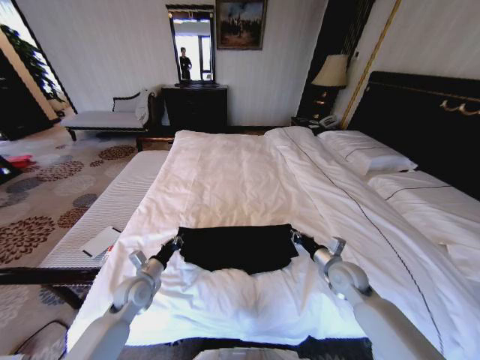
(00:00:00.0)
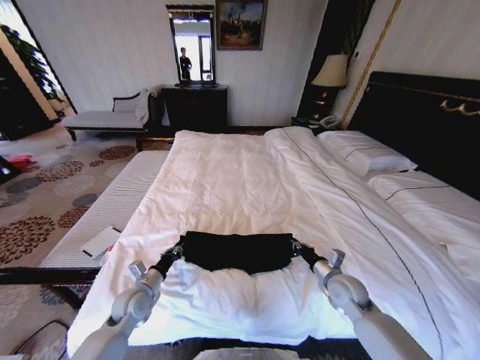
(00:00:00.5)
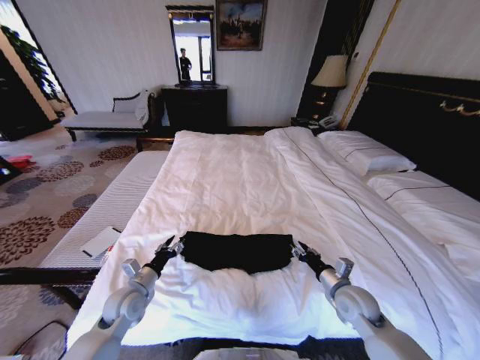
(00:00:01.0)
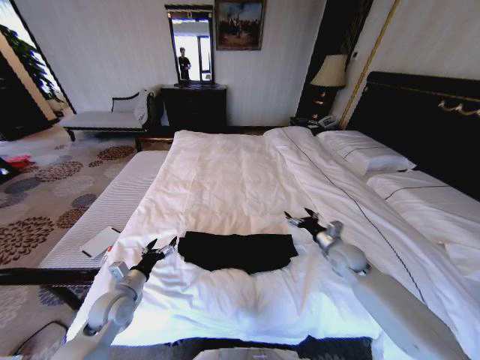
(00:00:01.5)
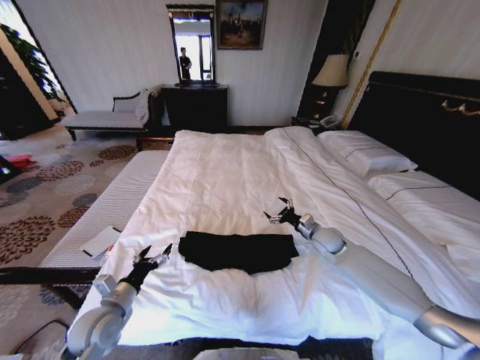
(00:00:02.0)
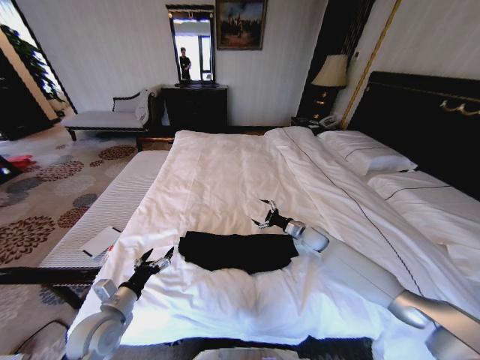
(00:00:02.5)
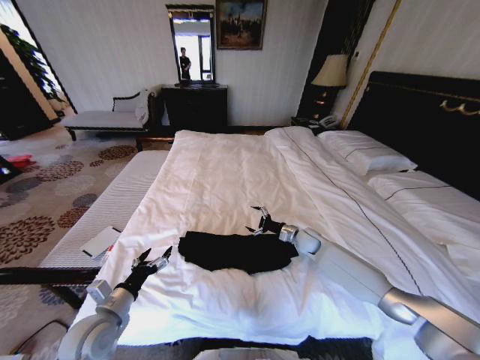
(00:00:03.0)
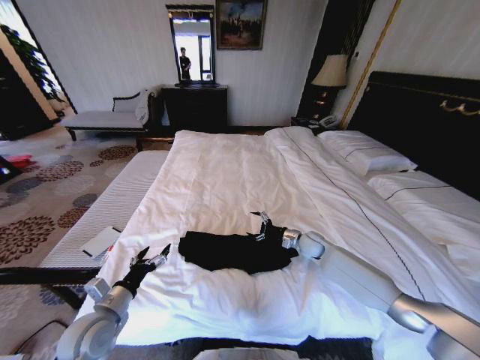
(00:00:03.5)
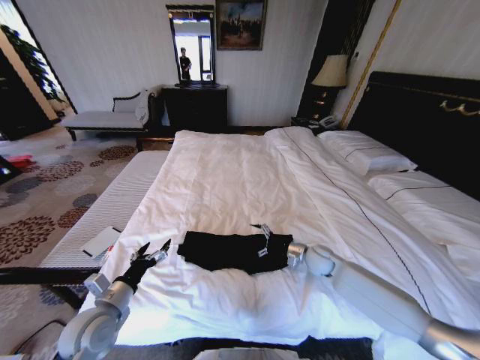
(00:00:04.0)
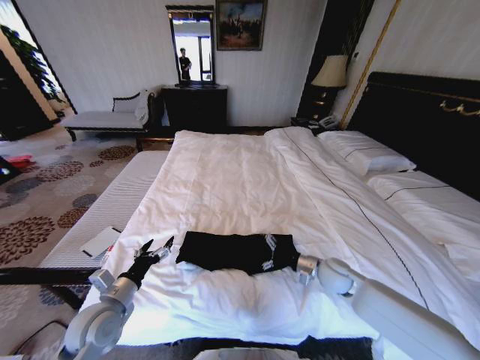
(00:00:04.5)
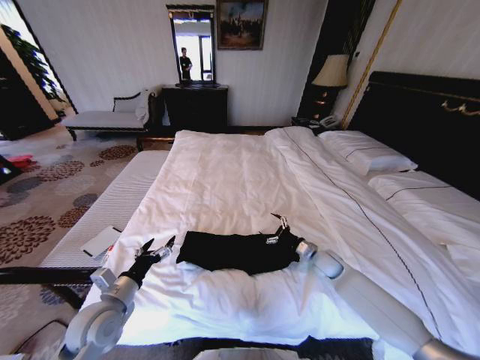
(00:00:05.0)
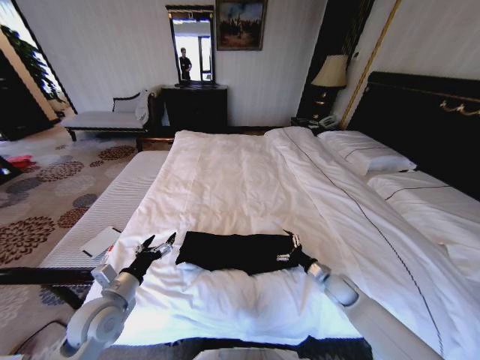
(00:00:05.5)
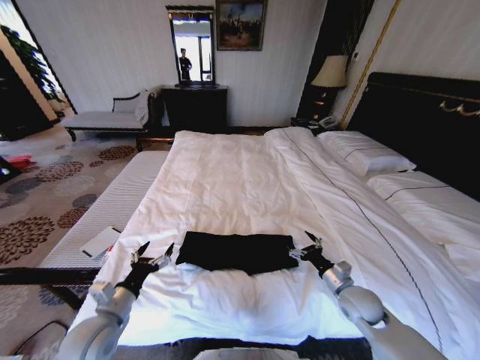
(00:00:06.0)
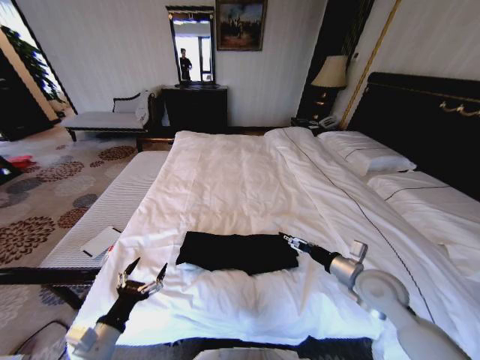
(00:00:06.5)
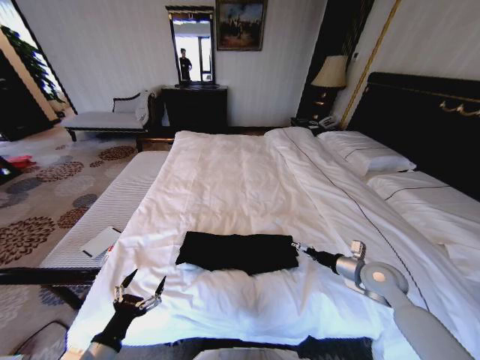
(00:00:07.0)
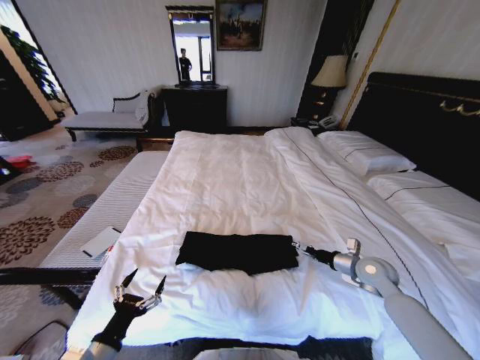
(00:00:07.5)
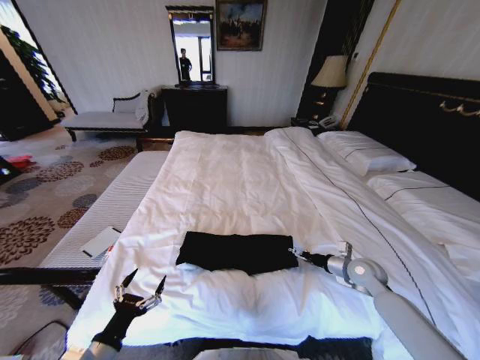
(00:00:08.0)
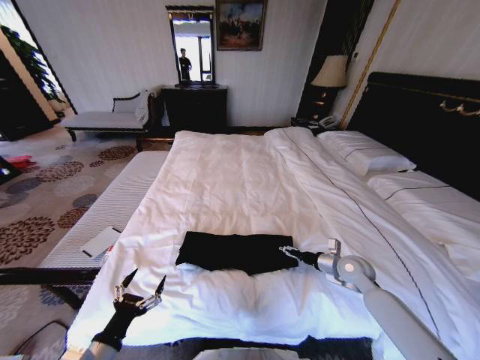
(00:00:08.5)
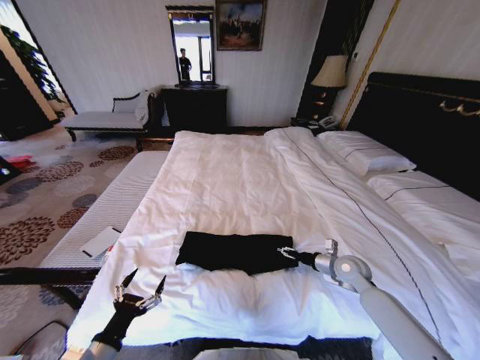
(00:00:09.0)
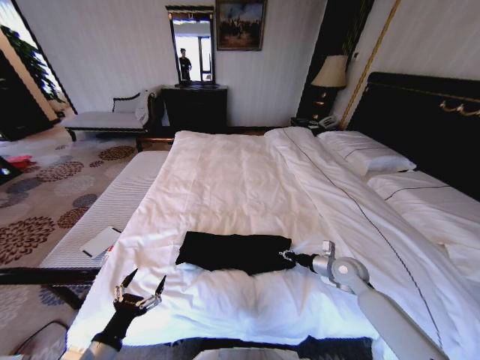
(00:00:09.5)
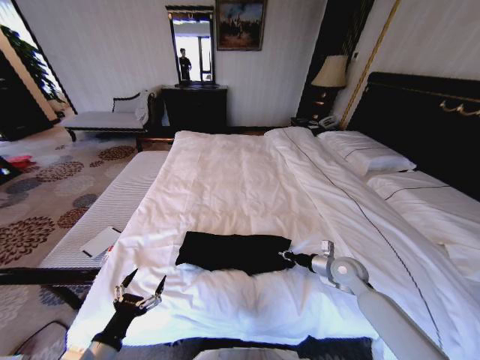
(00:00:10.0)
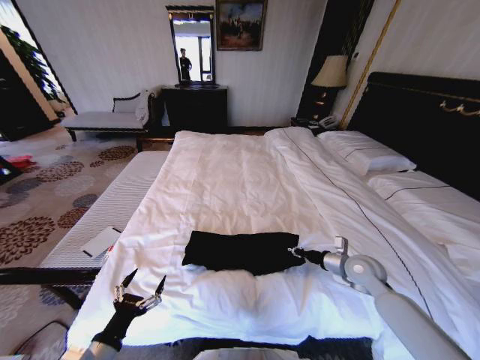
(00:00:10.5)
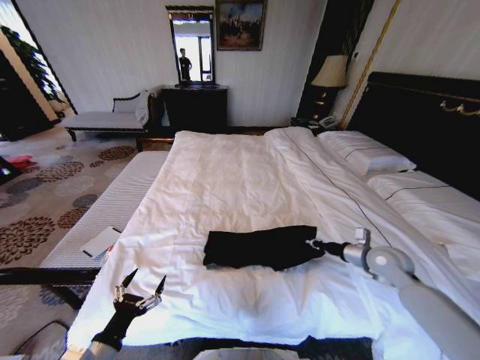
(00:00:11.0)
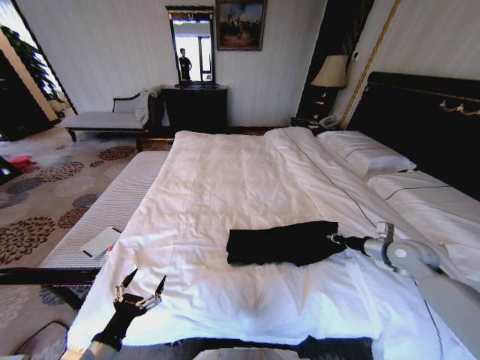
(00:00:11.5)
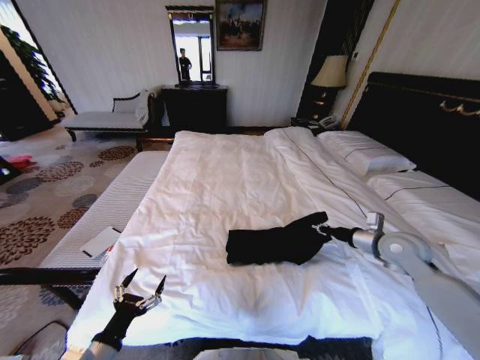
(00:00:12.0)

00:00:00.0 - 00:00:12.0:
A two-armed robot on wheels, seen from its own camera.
Task of the whole recording: Fold the clothes on the bed.
00:00:00.0 - 00:00:02.0: The left gripper shifts approximately 10 cm backward, and opens. Meanwhile the right gripper moves forward, approximately 15 cm, and opens.
00:00:02.0 - 00:00:04.0: The right gripper shifts by some 5 cm.
00:00:04.0 - 00:00:06.0: The right gripper goes forward and backward, roughly 15 cm each way, reversing 2 times.
00:00:06.0 - 00:00:08.0: The right gripper heads forward and to the right, covering roughly 10 cm, and reaches approximately 10 cm upward, then returns, while the left gripper is displaced backward by roughly 10 cm.
00:00:08.0 - 00:00:10.0: The right gripper is displaced to the left by roughly 5 cm, and closes.
00:00:10.0 - 00:00:12.0: The right gripper shifts about 15 cm upward and to the right.

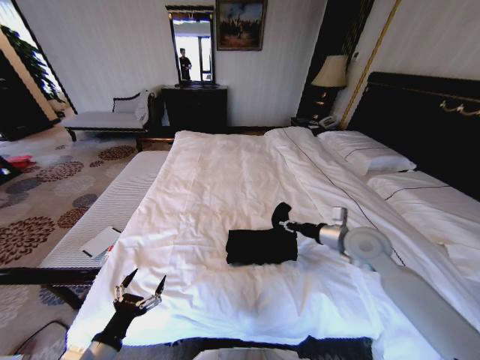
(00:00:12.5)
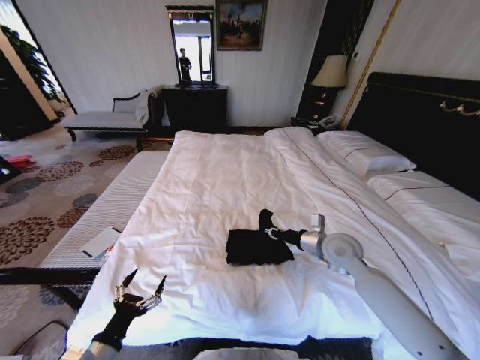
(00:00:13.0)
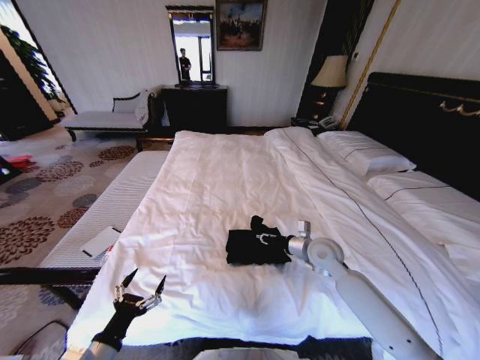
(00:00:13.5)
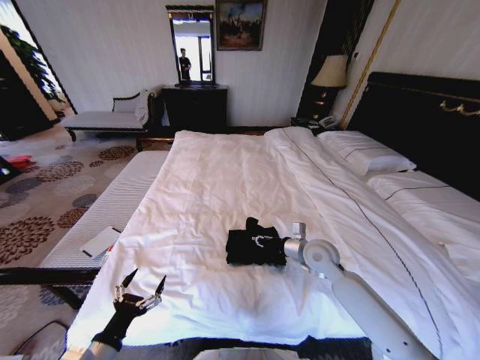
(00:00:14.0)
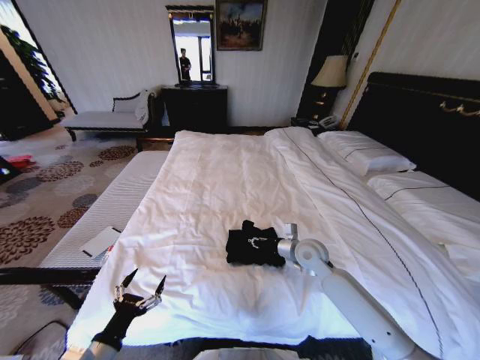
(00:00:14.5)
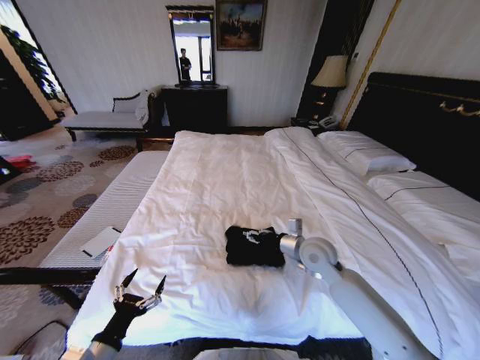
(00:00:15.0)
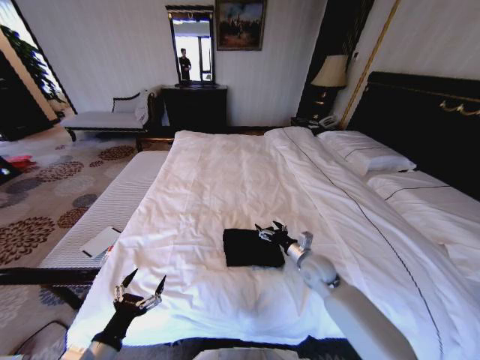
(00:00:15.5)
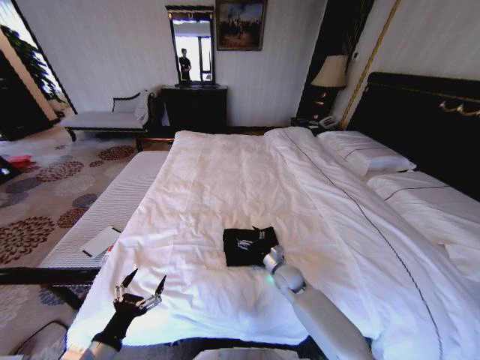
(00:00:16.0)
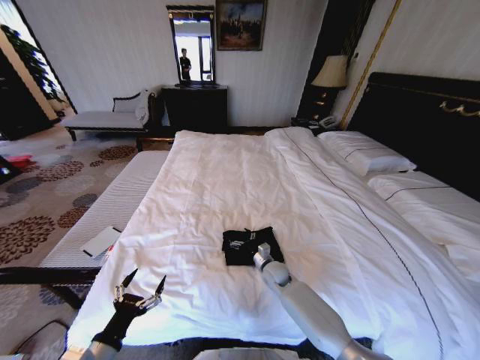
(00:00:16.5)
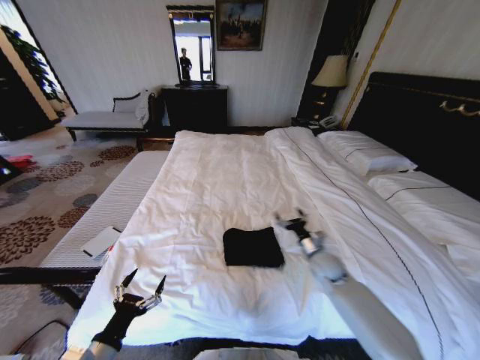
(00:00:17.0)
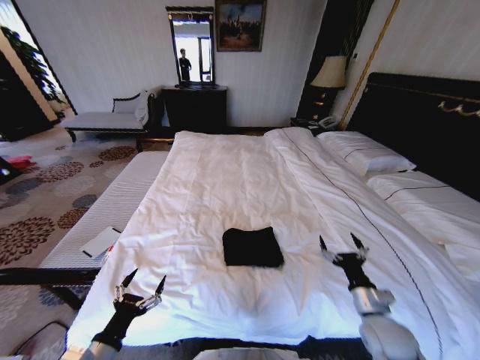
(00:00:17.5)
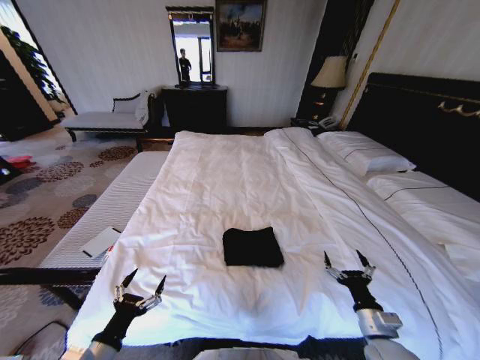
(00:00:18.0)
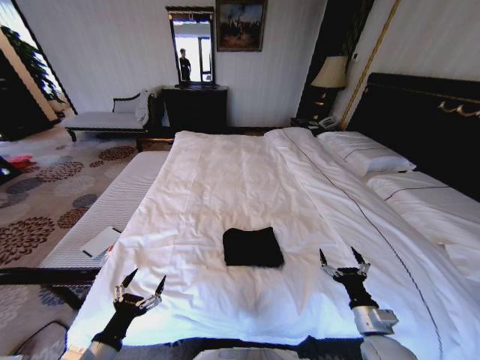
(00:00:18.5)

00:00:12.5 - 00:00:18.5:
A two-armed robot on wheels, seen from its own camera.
Task of the whole recording: Fold the clothes on the bed.
00:00:12.5 - 00:00:14.5: The right gripper travels downward and to the left by some 15 cm.
00:00:14.5 - 00:00:16.5: The right gripper is displaced downward and to the left by approximately 20 cm, and opens up.
00:00:16.5 - 00:00:18.5: The right gripper travels backward and to the right by about 30 cm.
